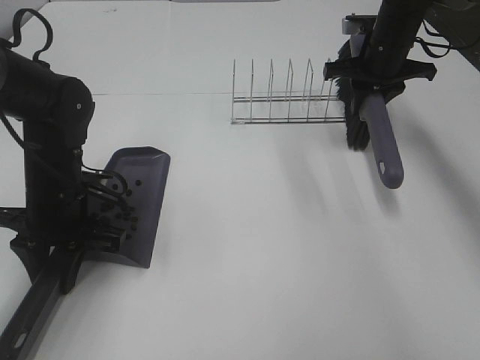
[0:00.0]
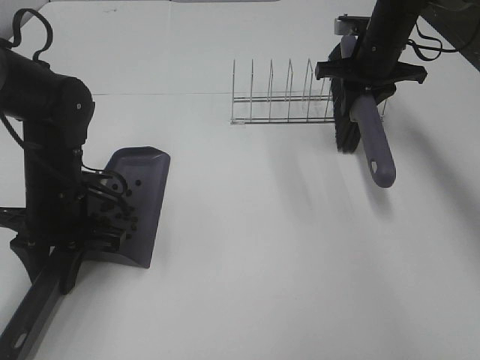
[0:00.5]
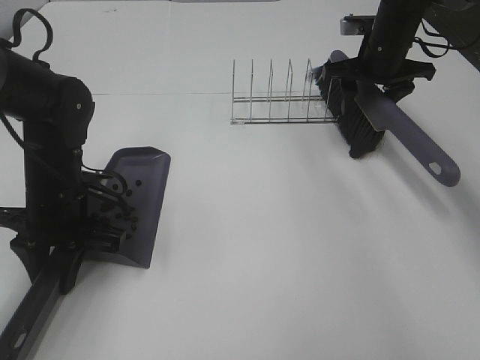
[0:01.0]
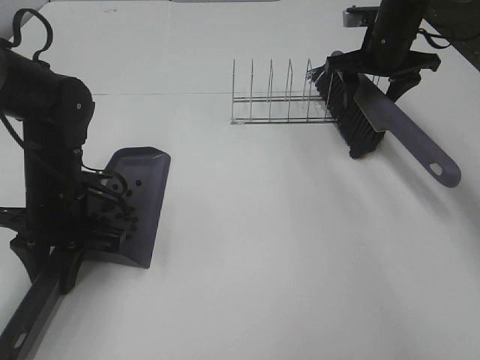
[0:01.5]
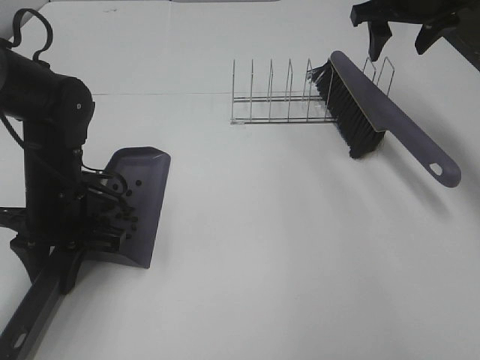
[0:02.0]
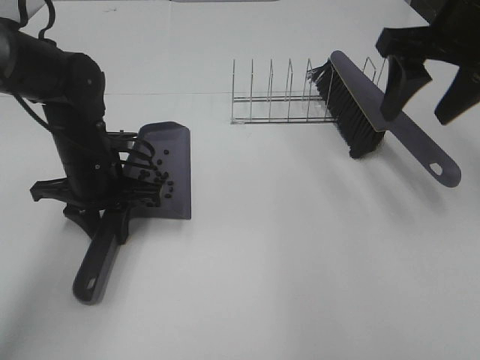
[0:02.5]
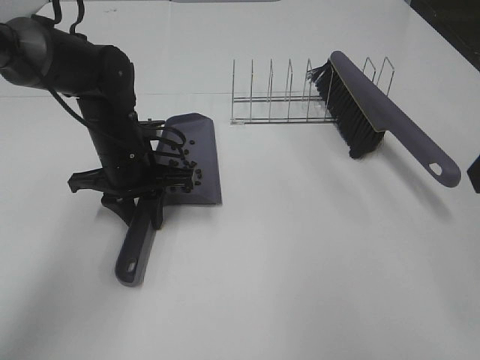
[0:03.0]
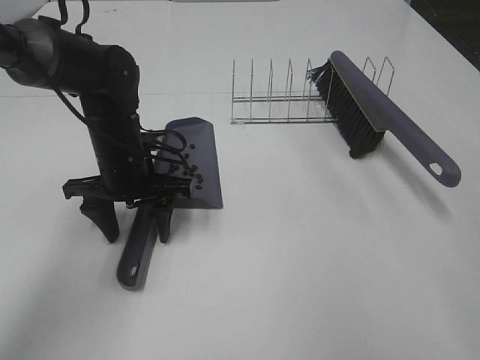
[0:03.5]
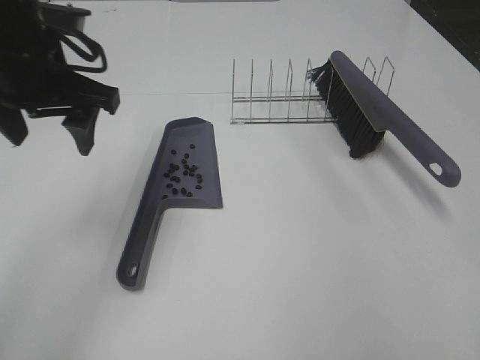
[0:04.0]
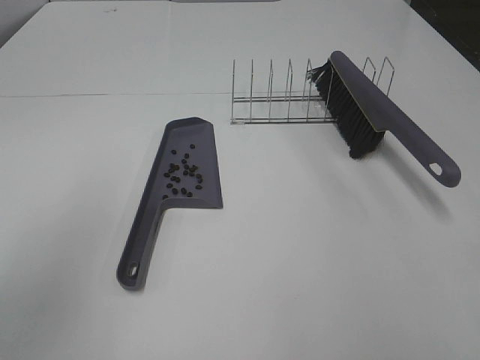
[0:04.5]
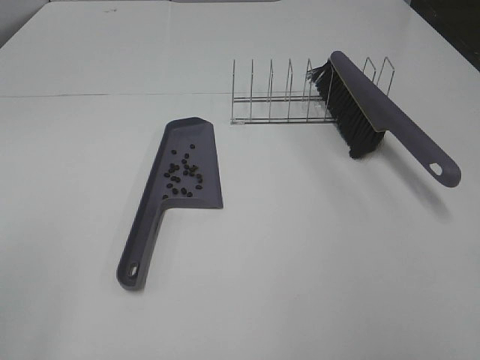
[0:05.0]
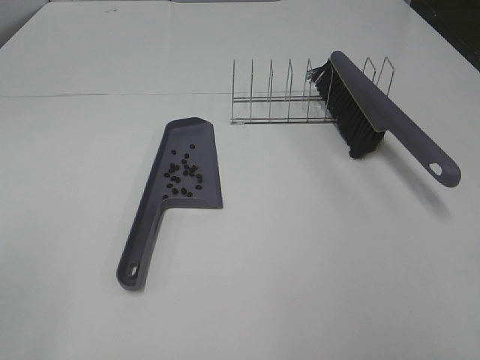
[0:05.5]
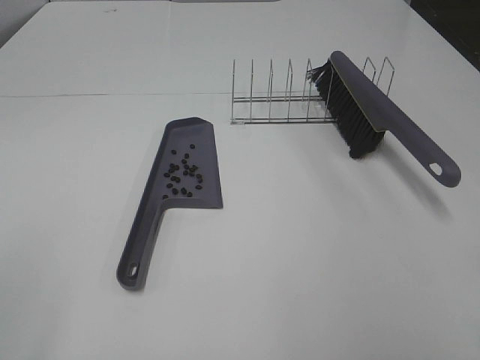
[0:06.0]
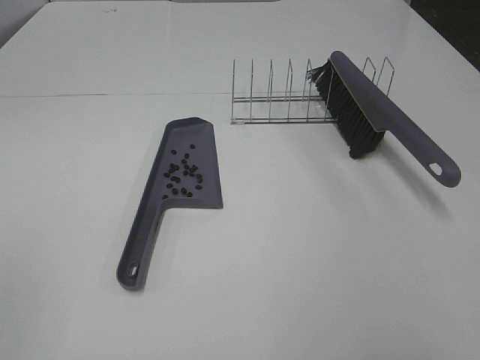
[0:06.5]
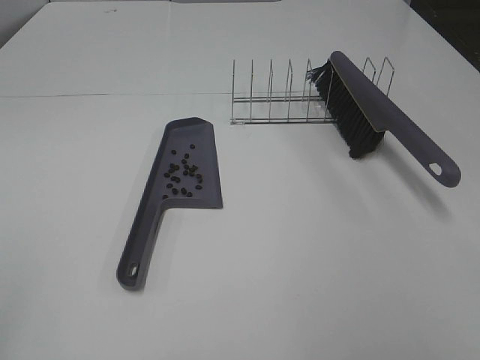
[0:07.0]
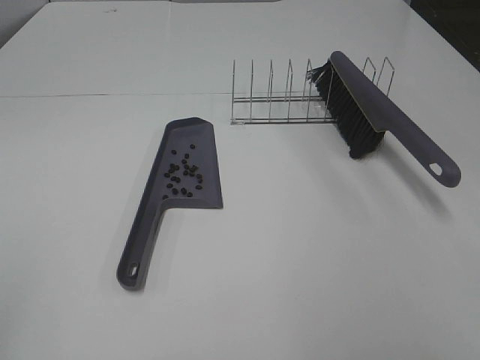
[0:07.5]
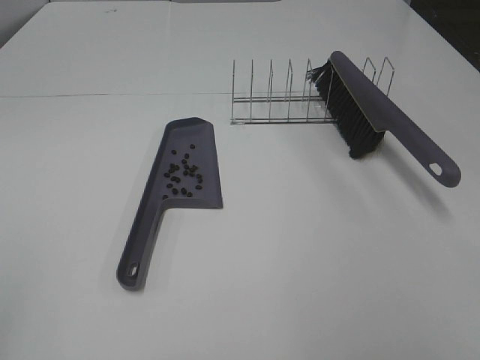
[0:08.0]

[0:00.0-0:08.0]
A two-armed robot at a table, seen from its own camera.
Task of the whole recording: Sweep Coffee Bean.
Step, 0:02.0 to 0:03.5: Left hand:place the dustpan on the table.
0:00.0 to 0:02.0: The right gripper shifts some 10 cm upward, and opens.
0:02.0 to 0:04.0: The left gripper heads upward, covering approximately 15 cm, and opens up. The right gripper goes approximately 40 cm backward.
0:04.0 to 0:06.0: The left gripper travels backward and to the left by roughly 35 cm.
